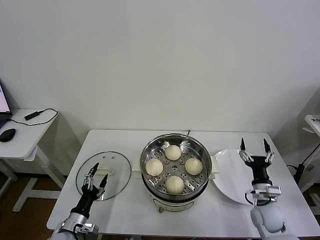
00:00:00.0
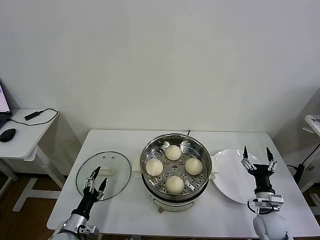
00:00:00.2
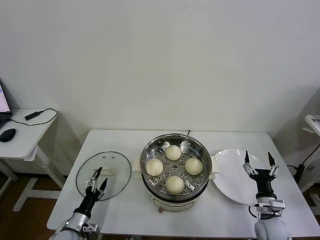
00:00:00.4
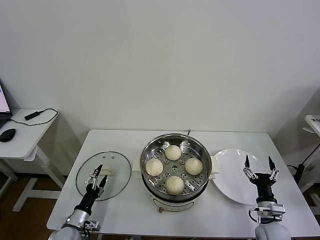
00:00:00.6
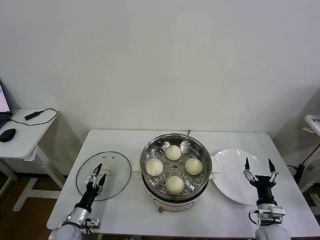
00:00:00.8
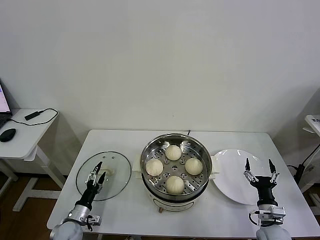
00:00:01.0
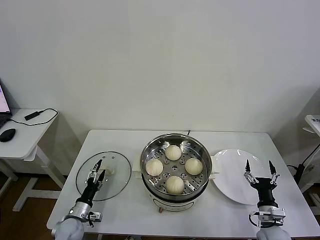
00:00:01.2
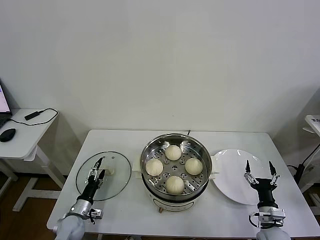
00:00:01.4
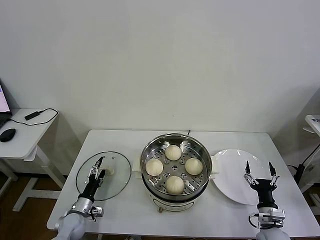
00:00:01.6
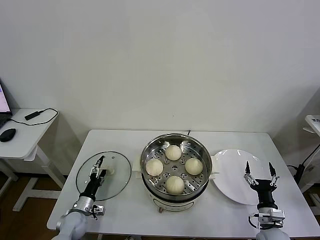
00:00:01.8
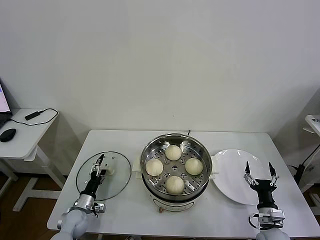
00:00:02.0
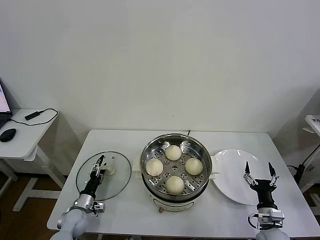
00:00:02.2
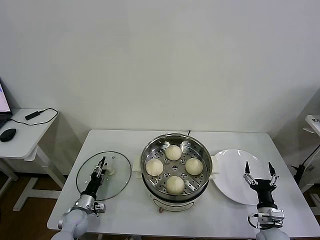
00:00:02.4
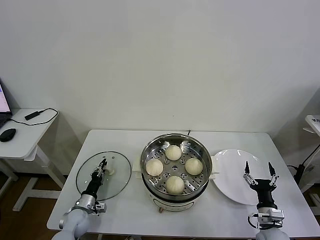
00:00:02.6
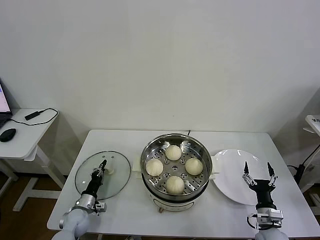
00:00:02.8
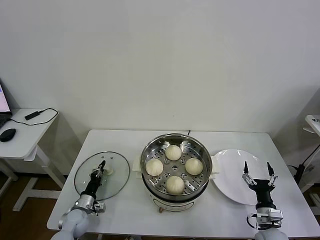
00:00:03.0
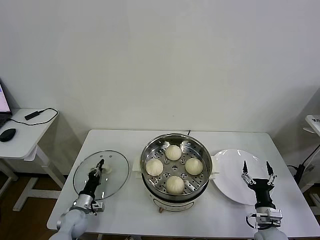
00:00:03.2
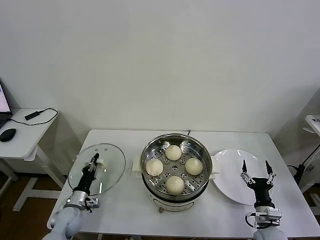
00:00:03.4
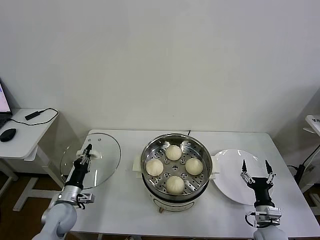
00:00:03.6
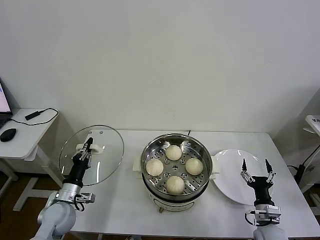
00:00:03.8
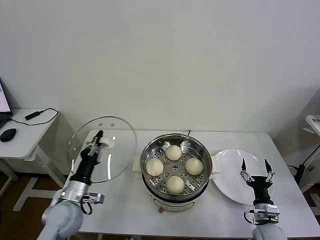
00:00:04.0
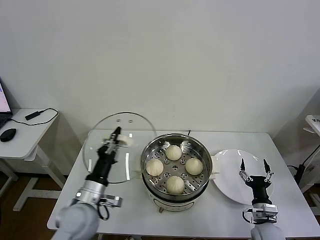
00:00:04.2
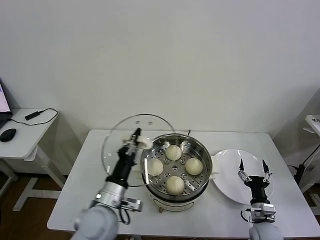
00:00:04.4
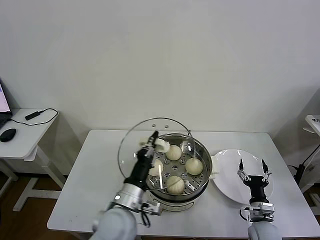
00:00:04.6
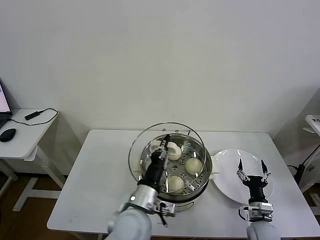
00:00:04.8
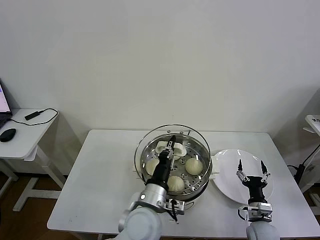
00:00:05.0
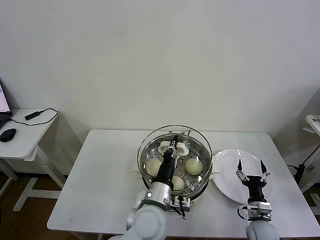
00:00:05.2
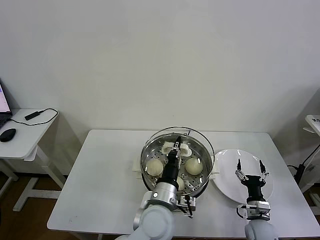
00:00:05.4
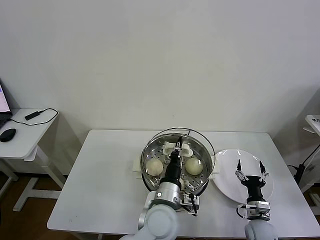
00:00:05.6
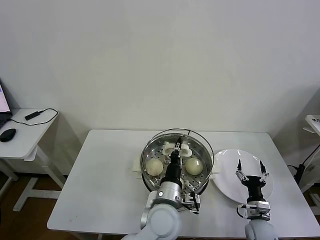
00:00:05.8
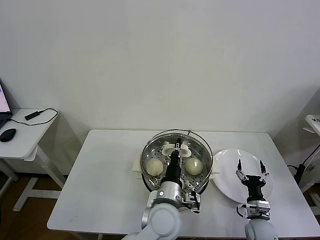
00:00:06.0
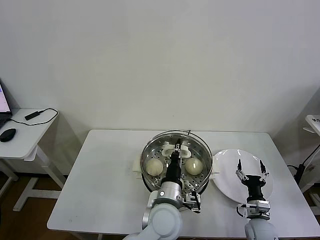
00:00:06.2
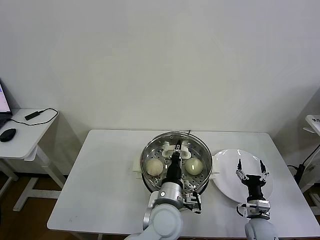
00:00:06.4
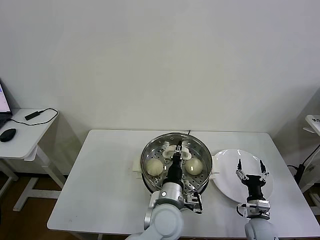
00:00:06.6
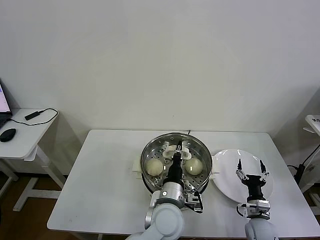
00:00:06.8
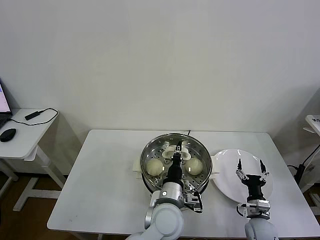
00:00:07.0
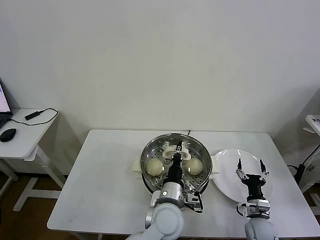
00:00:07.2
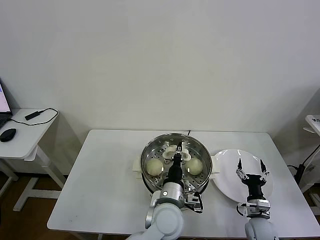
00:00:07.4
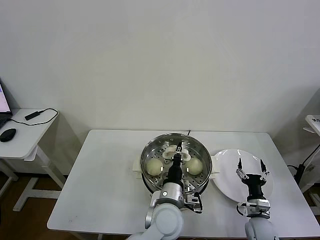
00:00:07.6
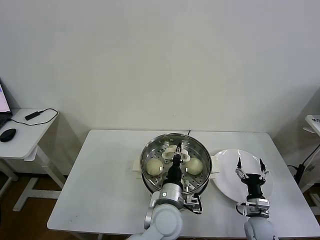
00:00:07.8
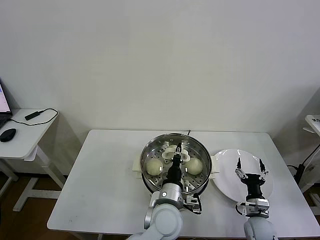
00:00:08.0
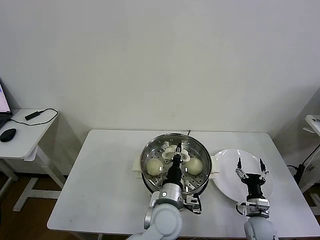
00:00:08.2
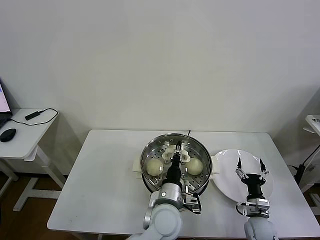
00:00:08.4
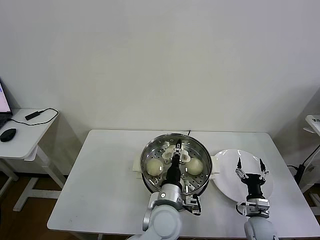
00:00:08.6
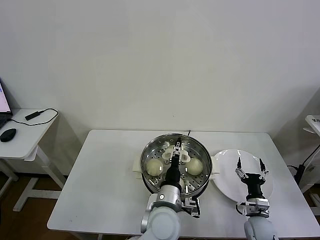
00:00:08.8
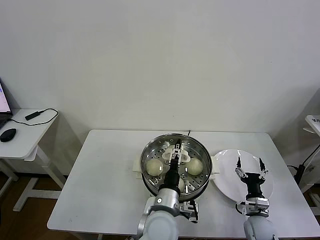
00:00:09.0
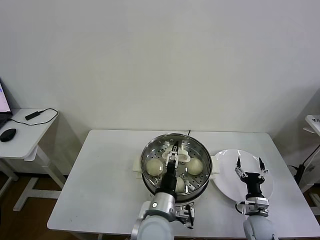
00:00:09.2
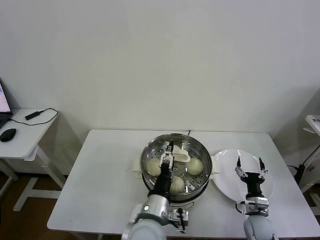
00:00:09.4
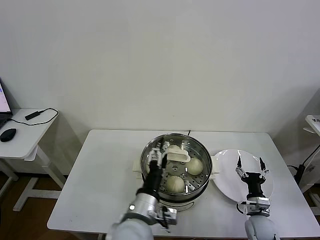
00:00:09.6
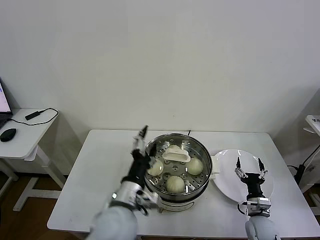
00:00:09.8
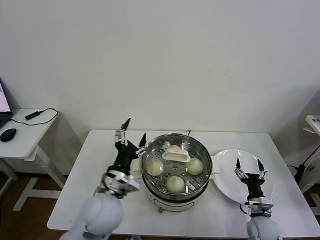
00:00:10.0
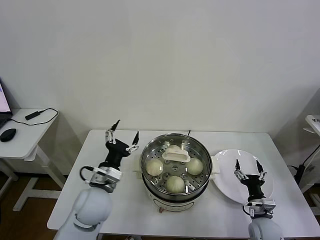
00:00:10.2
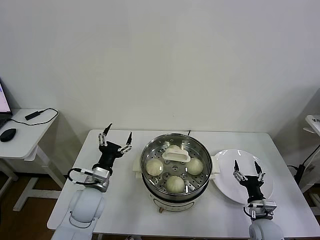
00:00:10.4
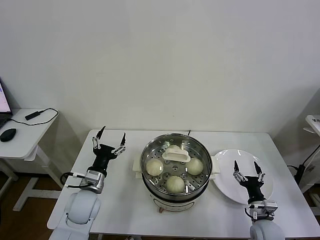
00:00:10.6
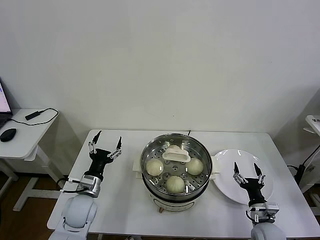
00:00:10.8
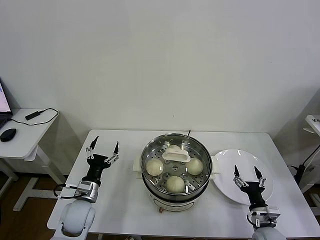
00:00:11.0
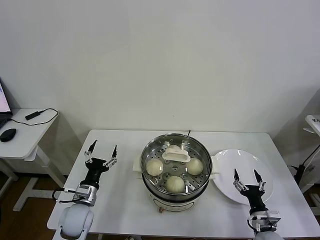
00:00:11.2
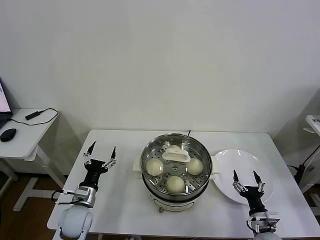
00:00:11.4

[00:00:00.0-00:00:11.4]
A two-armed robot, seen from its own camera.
Task of the whole recording: take steamed baozi put them in steamer then cover it.
Step, 00:00:00.0 to 00:00:03.0: Grasp the pot lid with left gripper.
Step, 00:00:03.2 to 00:00:08.6: Place the pot lid on the steamer with left gripper.
00:00:00.0 to 00:00:01.4: The left gripper moves forward and downward, approximately 10 cm. Meanwhile the right gripper moves backward, about 5 cm.
00:00:01.4 to 00:00:02.8: The left gripper closes.
00:00:02.8 to 00:00:04.2: The left gripper heads upward and to the right, covering approximately 25 cm.
00:00:04.2 to 00:00:05.6: The left gripper moves to the right, roughly 25 cm.
00:00:05.6 to 00:00:07.2: There are only small adjustments of the grippers.
00:00:07.2 to 00:00:08.6: The left gripper opens.
00:00:08.6 to 00:00:10.0: The left gripper shifts approximately 15 cm to the left and upward, and opens up.
00:00:10.0 to 00:00:11.4: The left gripper is displaced downward and to the left by roughly 20 cm. Meanwhile the right gripper shifts approximately 5 cm backward.
